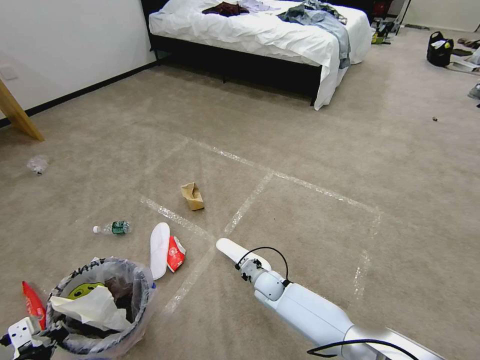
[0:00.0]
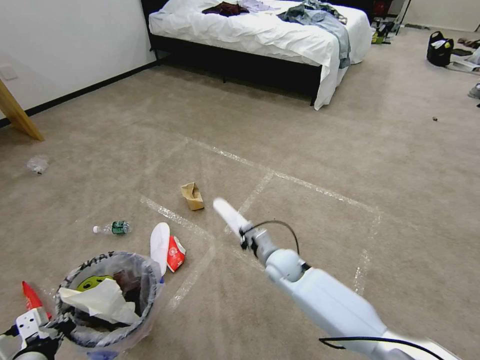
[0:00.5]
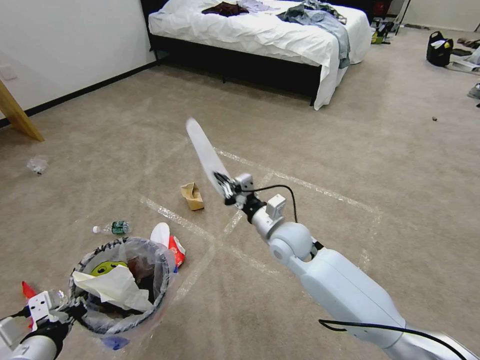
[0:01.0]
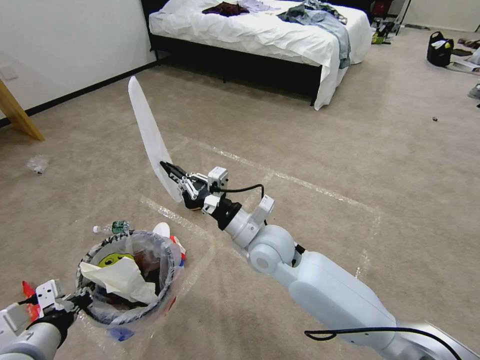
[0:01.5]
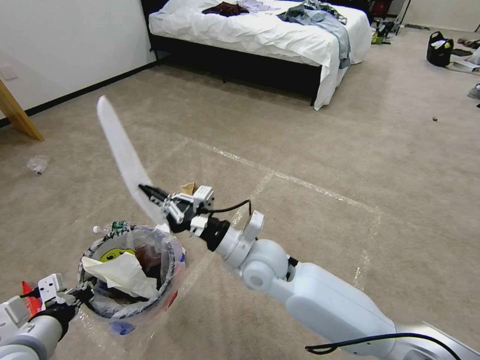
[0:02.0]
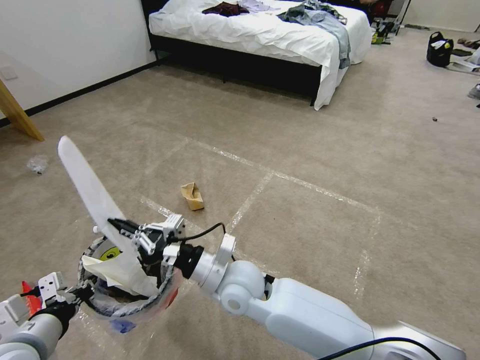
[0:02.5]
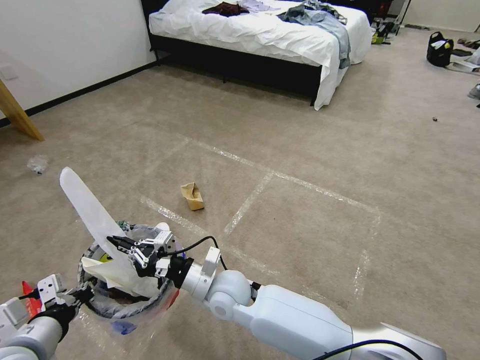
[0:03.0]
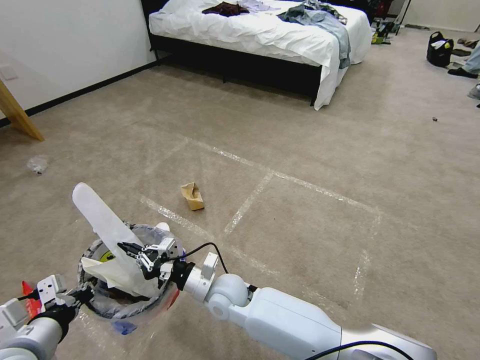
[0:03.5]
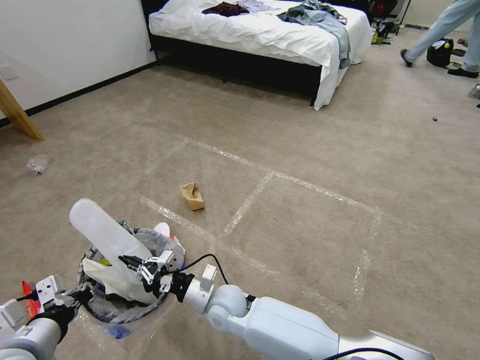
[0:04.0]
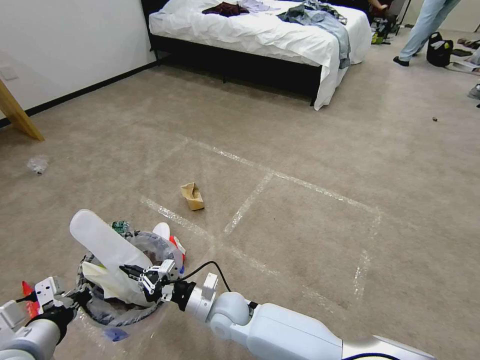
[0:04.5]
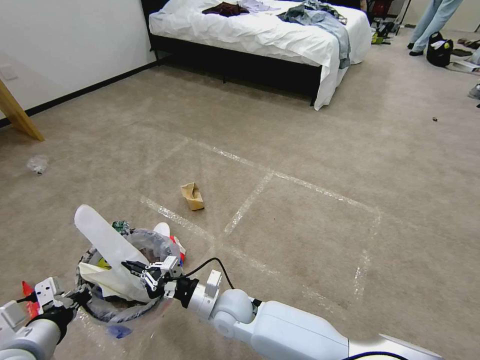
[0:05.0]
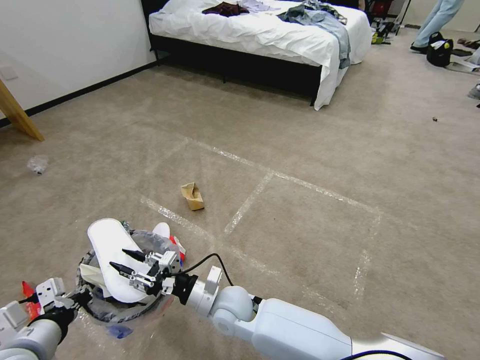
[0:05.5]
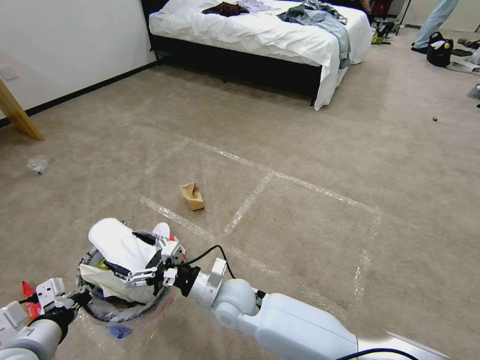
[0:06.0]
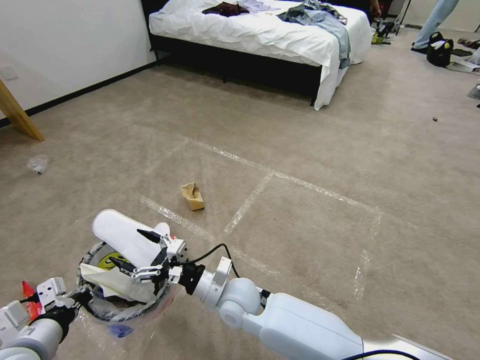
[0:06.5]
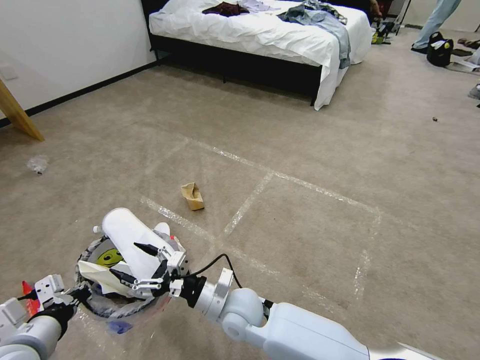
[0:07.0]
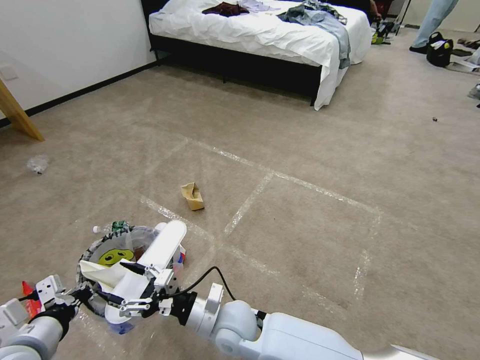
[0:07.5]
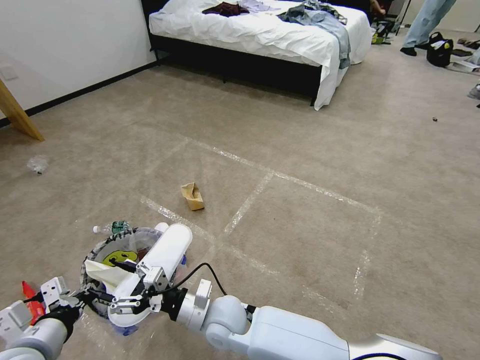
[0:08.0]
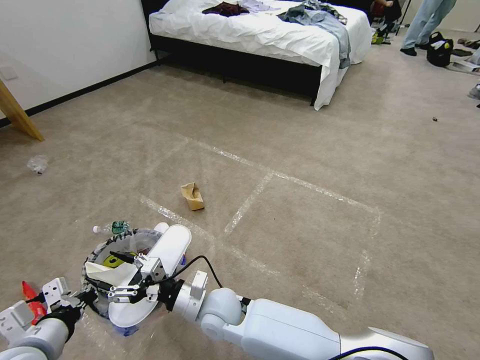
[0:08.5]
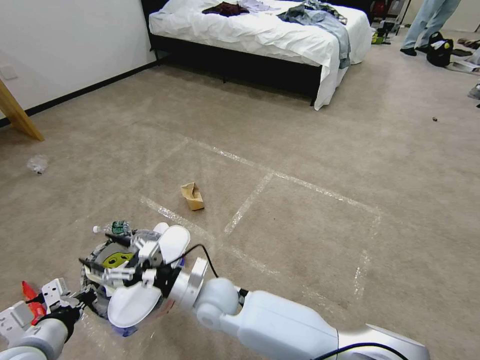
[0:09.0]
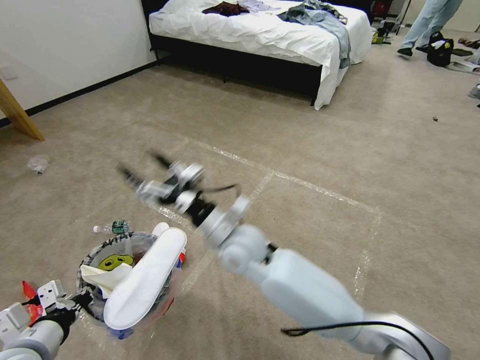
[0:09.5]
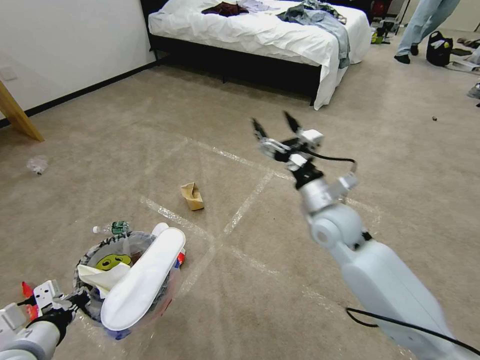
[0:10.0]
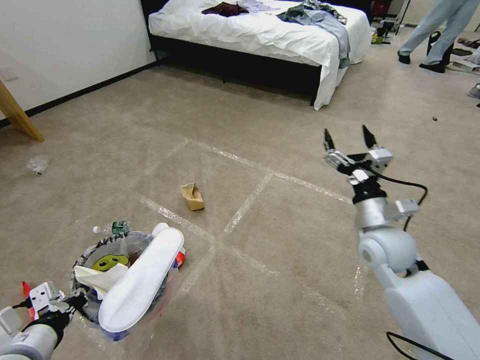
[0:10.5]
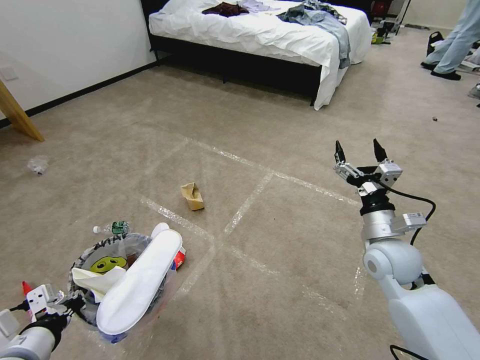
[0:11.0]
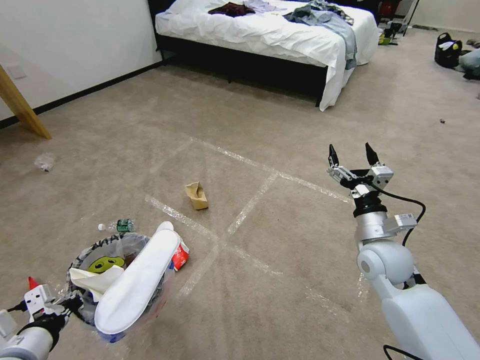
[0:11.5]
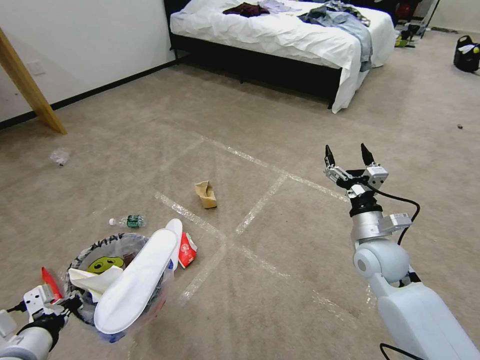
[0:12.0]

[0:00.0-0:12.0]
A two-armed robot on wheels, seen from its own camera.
Task of the whole recording: Pick up the trash bin and place the garbage on the floor into it.
0:00.0 to 0:02.0: The right gripper travels upward by about 25 cm, while the left gripper heads upward, covering roughly 5 cm.
0:02.0 to 0:04.0: The right gripper travels downward and to the left by approximately 20 cm.
0:04.0 to 0:06.0: The right gripper moves approximately 5 cm, and opens up.
0:06.0 to 0:08.0: There are only small adjustments of the grippers.
0:08.0 to 0:10.0: The right gripper moves to the right, upward and forward, some 30 cm.
0:10.0 to 0:12.0: The right gripper moves to the right and downward, approximately 15 cm.

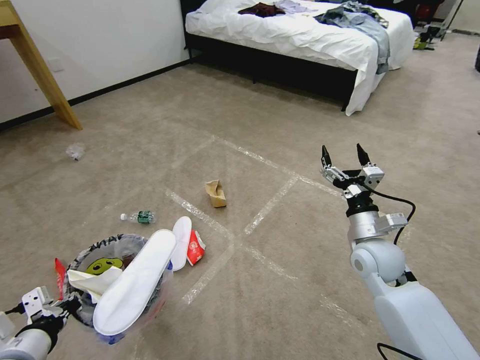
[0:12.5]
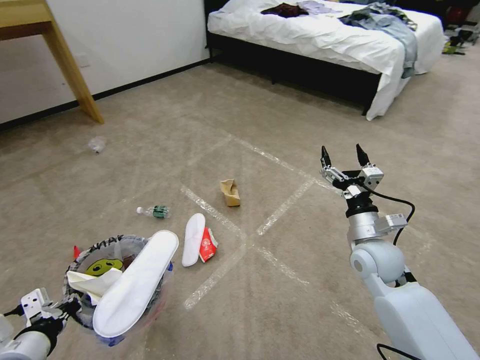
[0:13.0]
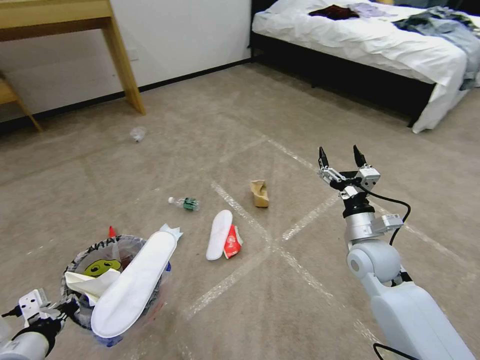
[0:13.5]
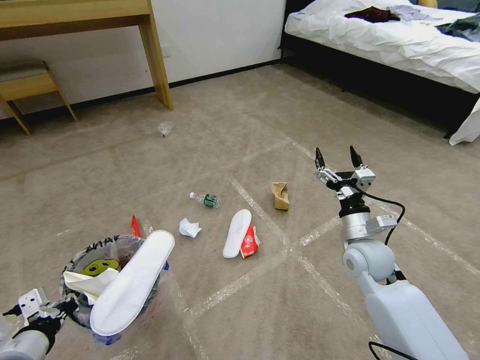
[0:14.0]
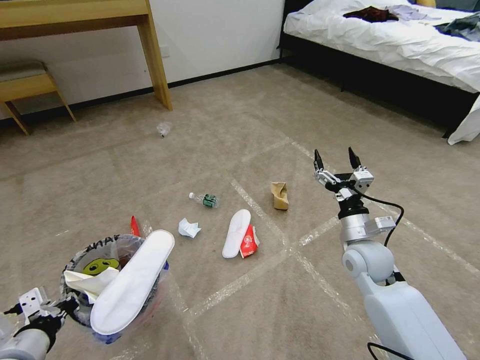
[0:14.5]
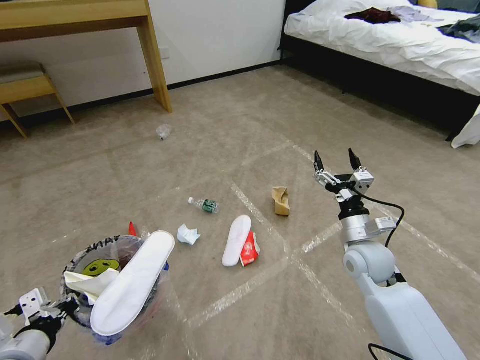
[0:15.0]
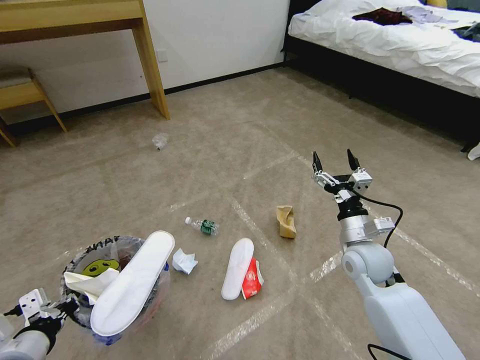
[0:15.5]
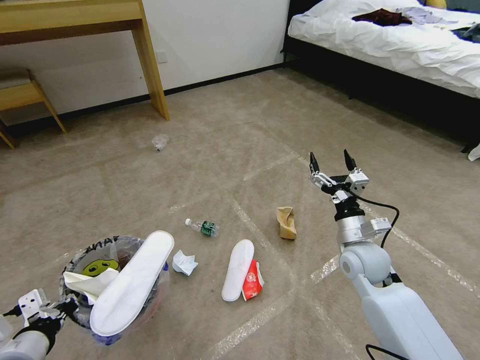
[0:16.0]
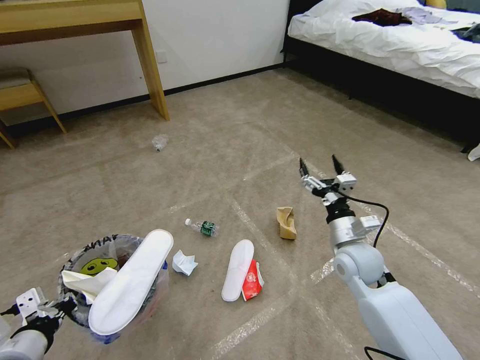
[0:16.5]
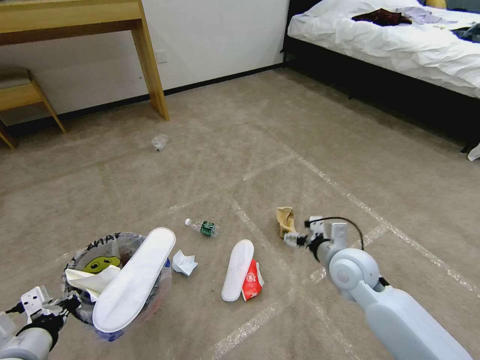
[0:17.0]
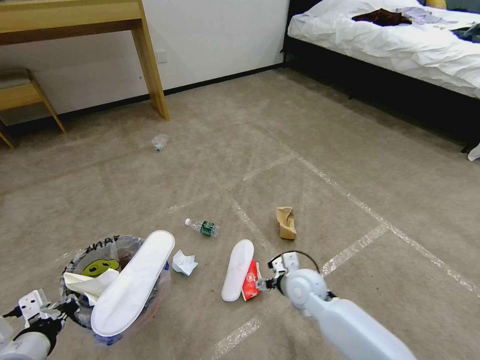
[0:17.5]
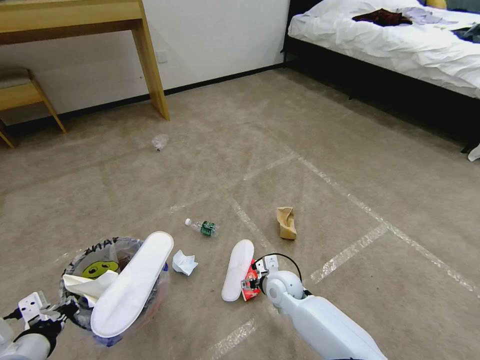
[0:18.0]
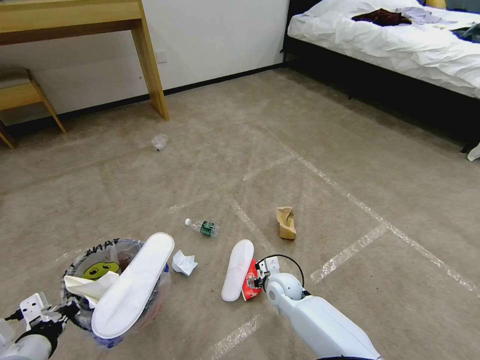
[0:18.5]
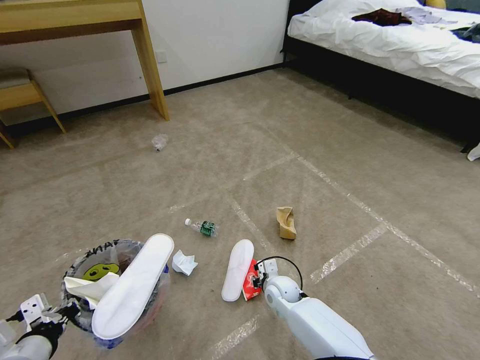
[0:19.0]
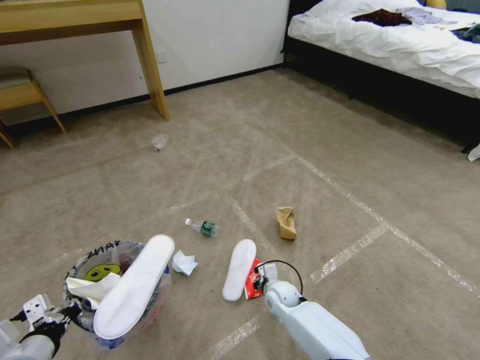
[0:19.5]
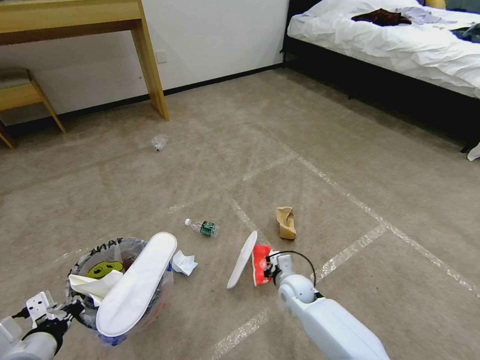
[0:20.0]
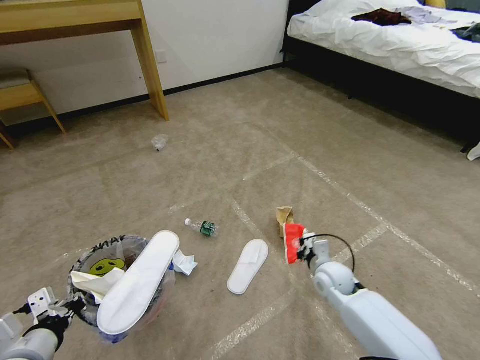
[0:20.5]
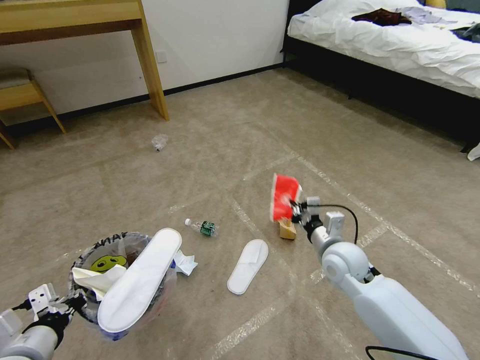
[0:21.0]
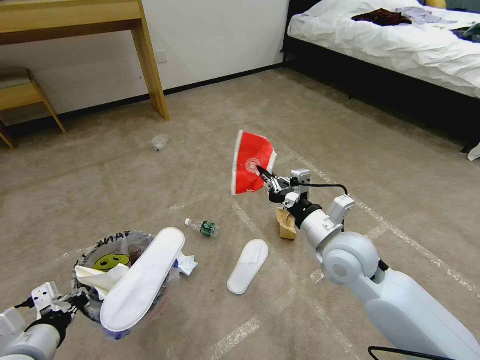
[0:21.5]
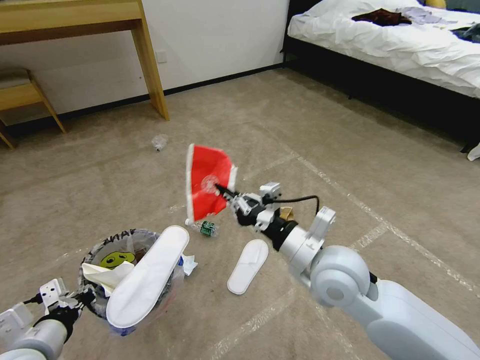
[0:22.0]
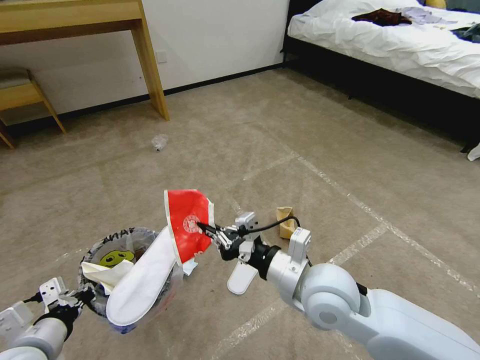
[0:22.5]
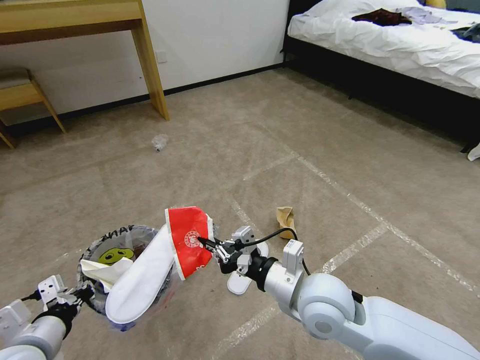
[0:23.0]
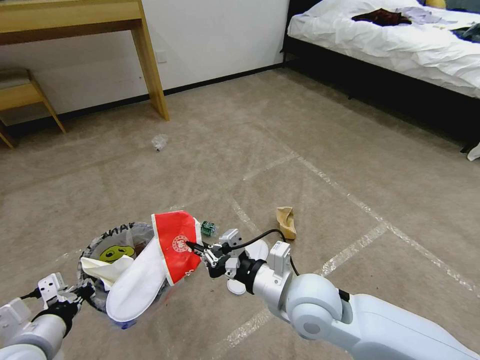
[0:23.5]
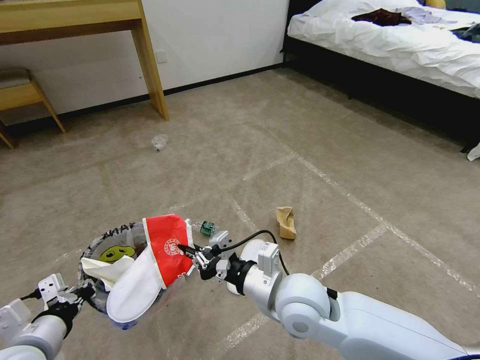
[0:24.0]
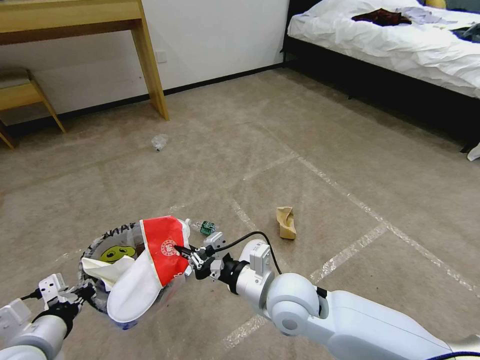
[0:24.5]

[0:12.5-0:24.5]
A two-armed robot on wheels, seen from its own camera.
Task of the whole recording: Pick up the trash bin and place the garbage on the floor into it.
0:16.5 to 0:18.5: The right gripper moves downward and to the left, approximately 20 cm.
0:18.5 to 0:20.5: The right gripper is displaced to the right and upward by about 15 cm, and closes up.
0:20.5 to 0:22.5: The right gripper heads upward, backward and to the left, covering approximately 25 cm.
0:22.5 to 0:24.5: The right gripper moves to the left, some 5 cm.

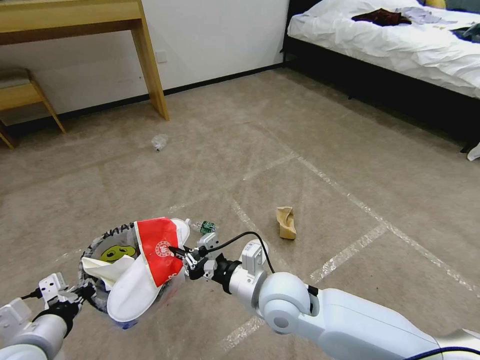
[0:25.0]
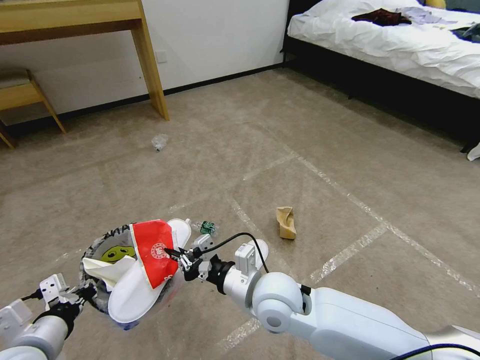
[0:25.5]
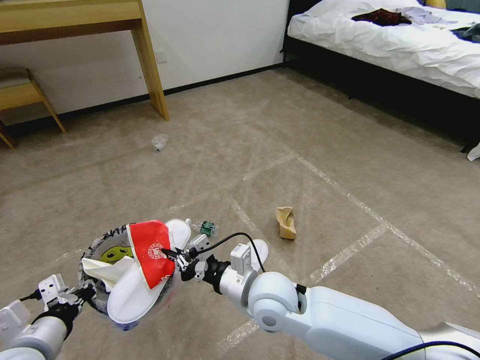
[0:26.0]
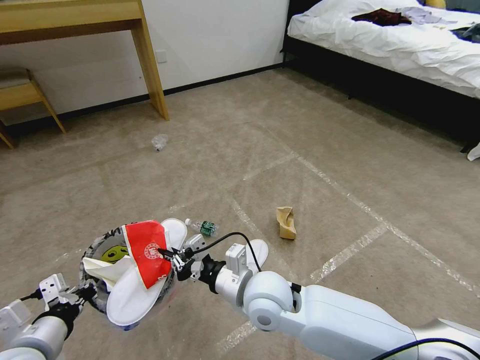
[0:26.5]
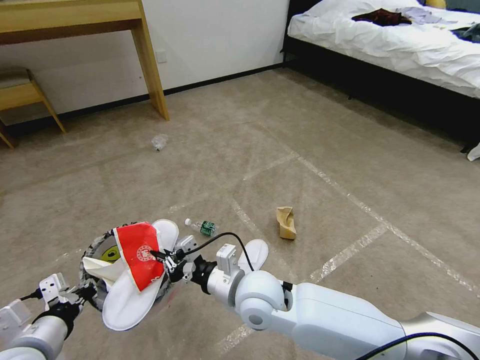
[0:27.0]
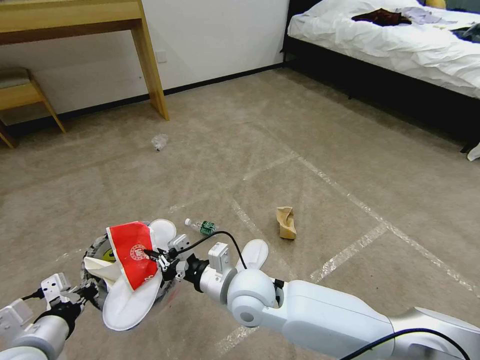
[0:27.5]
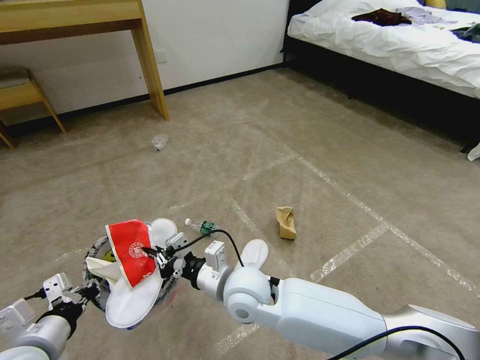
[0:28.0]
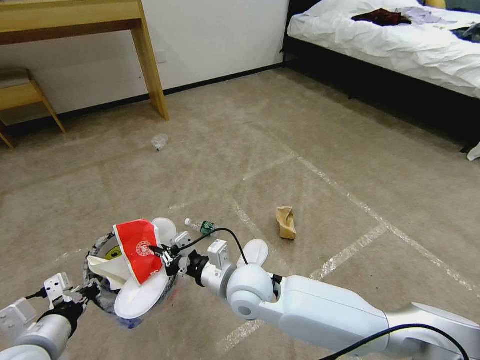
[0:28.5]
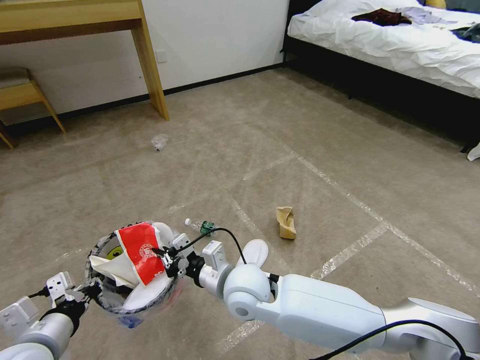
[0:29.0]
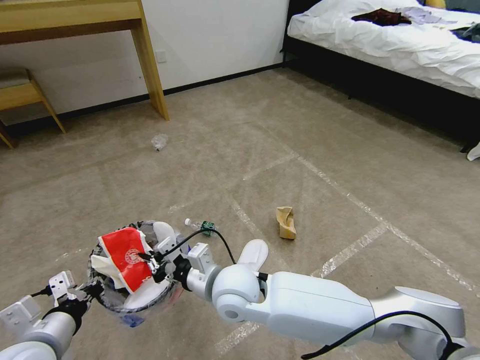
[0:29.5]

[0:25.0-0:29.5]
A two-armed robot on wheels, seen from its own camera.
Task of the whole recording: Pick up the trash bin and place the garbage on the floor into it.
0:25.0 to 0:27.0: The grippers make only small movements.
0:27.0 to 0:29.5: The grippers move only a little.
